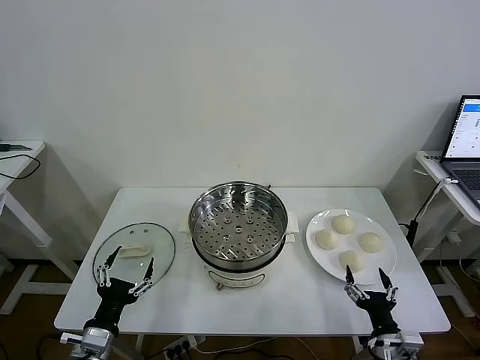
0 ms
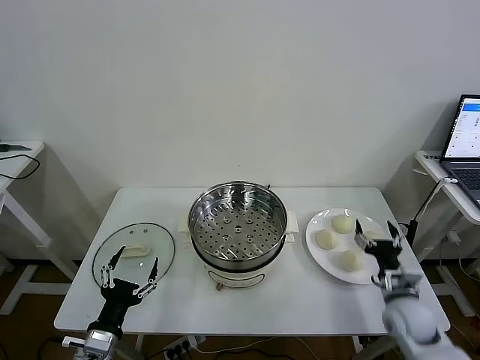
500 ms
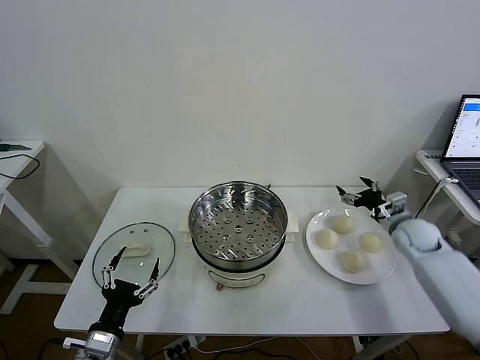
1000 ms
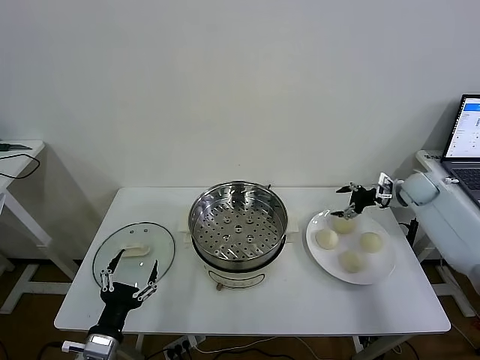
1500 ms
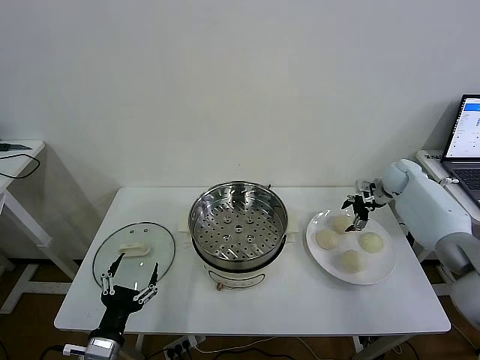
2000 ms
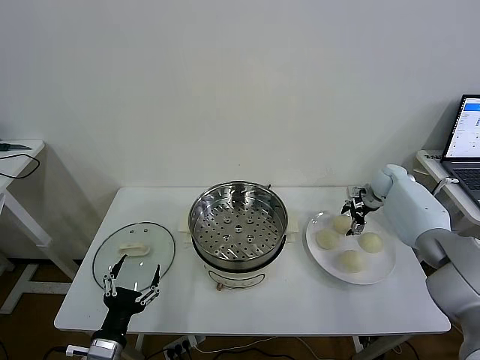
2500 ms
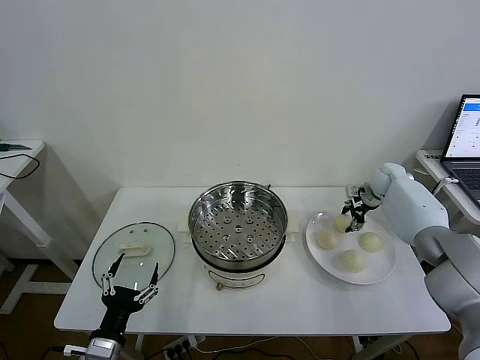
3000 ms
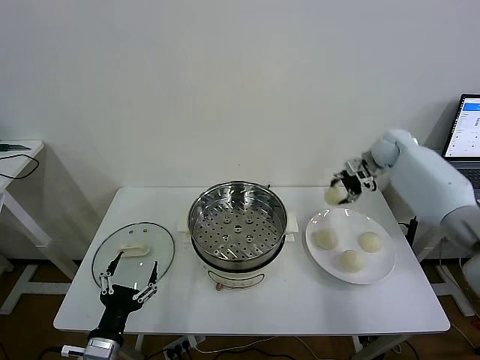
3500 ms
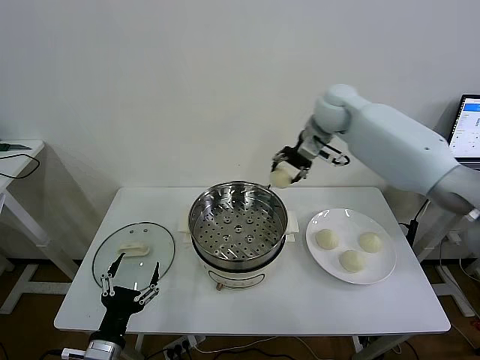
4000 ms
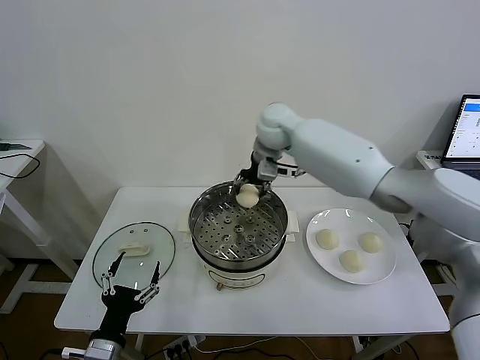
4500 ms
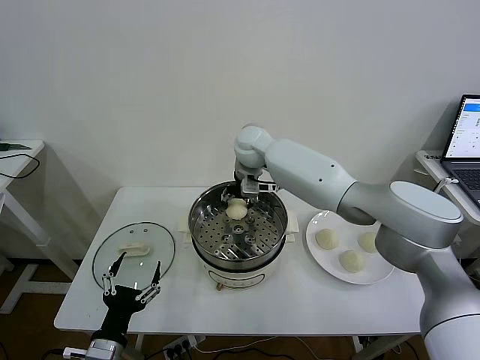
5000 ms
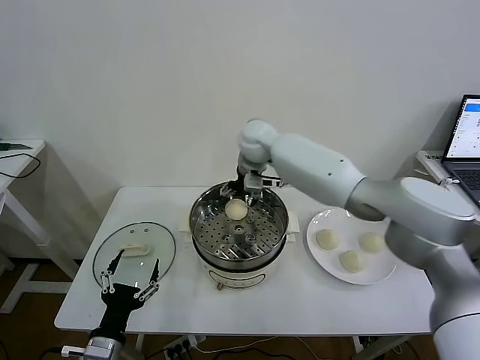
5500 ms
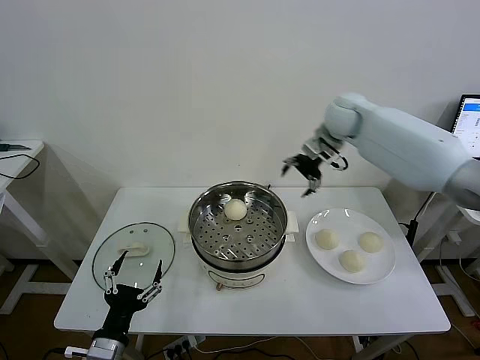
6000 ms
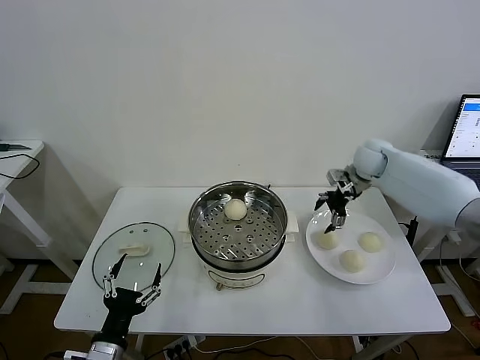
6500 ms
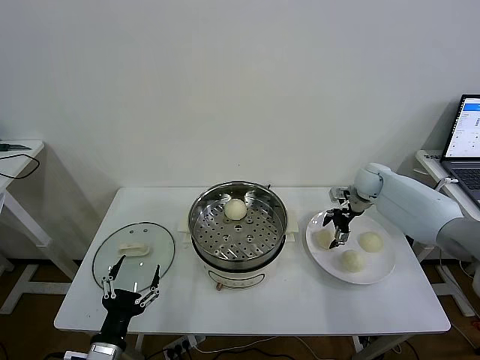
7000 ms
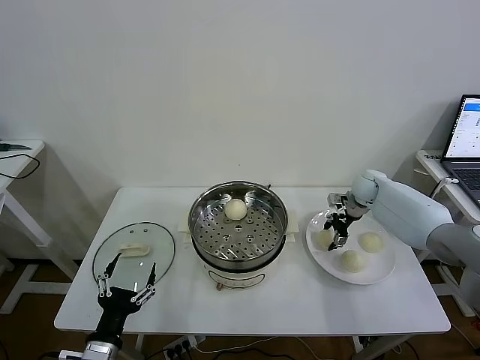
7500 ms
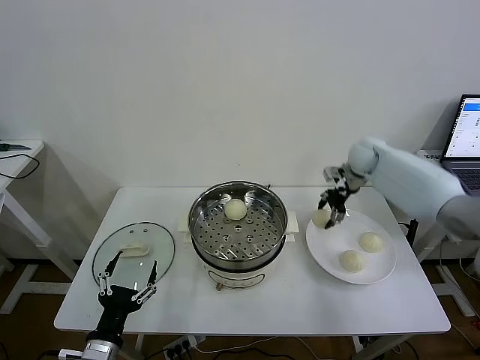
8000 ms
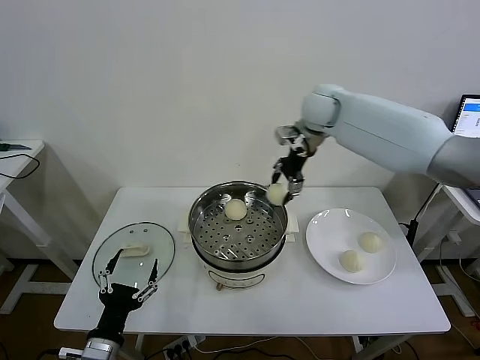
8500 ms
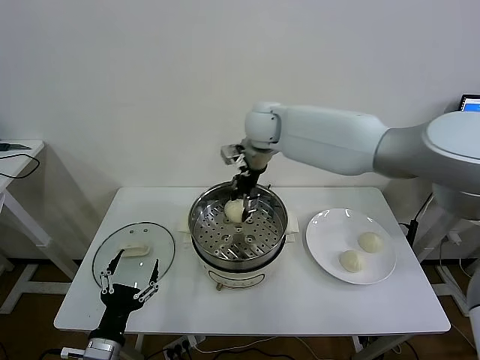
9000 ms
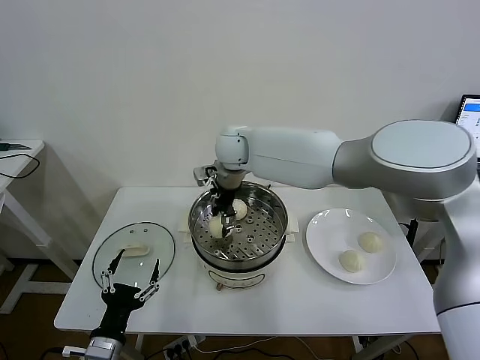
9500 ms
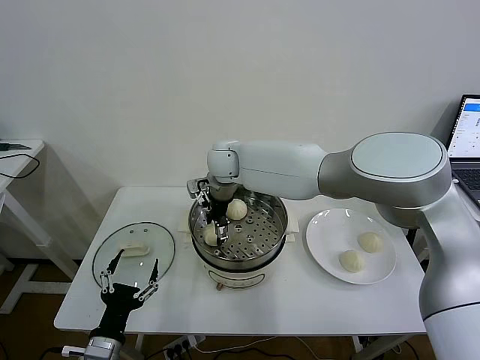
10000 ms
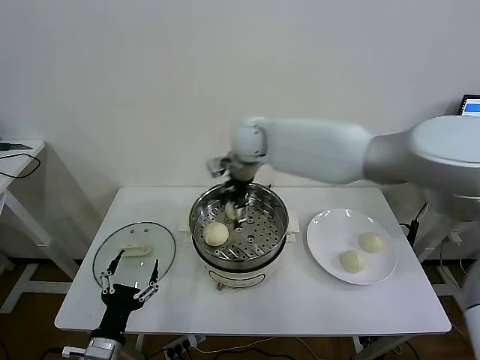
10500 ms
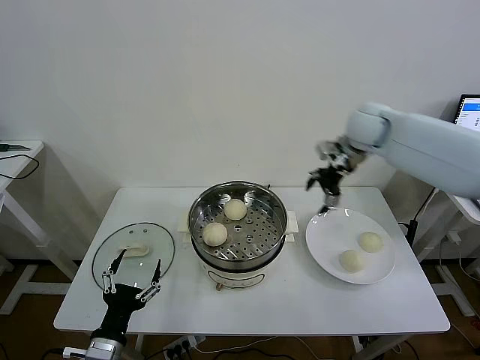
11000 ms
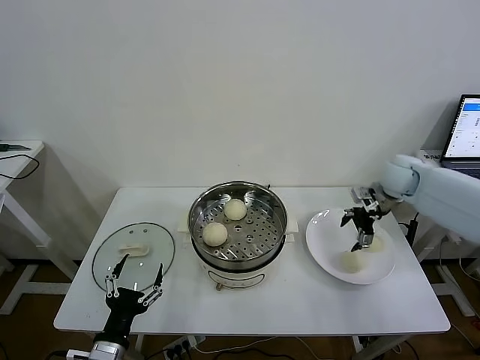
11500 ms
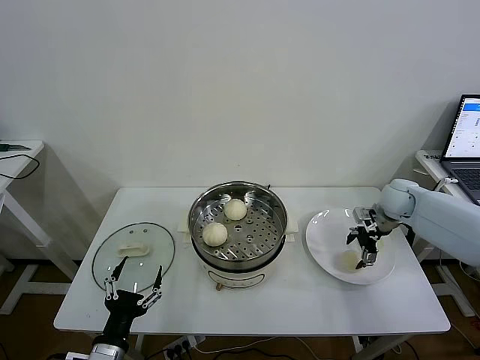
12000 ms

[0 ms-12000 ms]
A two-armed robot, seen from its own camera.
Task of the whole recording: take steamed baozi put them in steamer then cover it.
Step, 0 ms to 2500 ms: Grasp the baozi in the plate with right gripper.
Step, 3000 ms to 5000 ms: Place the baozi on the steamer with right gripper.
Step, 5500 ms to 7500 ms: Grasp the baozi in the plate with right gripper.
Step, 8000 ms to 10000 ms: Place the baozi on the steamer with right gripper.
2000 ms to 4000 ms: The right gripper heads to the left and upward, covering some 35 cm, and closes up.
4000 ms to 6000 ms: The right gripper shifts some 10 cm to the right, and opens.
6000 ms to 8000 ms: The right gripper heads downward, covering roughly 5 cm, and closes its fingers.
8000 ms to 10000 ms: The right gripper travels to the left by some 35 cm, and opens up.
10000 ms to 12000 ms: The right gripper shifts some 40 cm to the right.

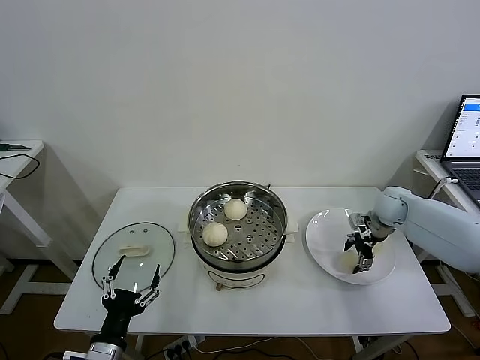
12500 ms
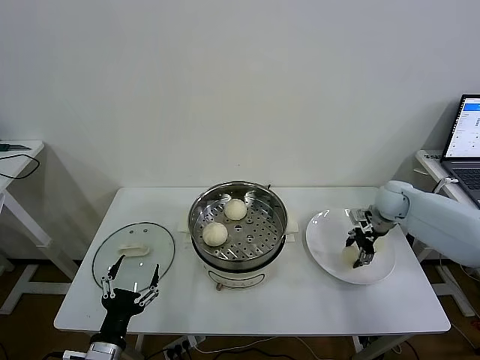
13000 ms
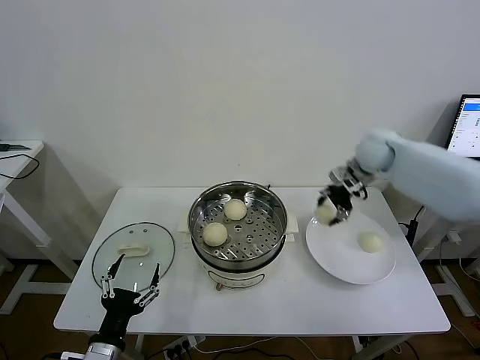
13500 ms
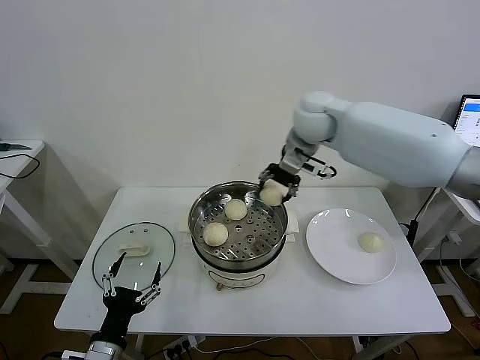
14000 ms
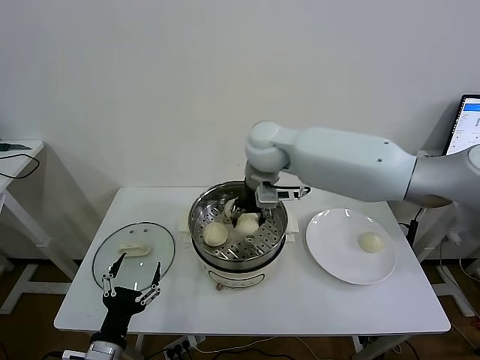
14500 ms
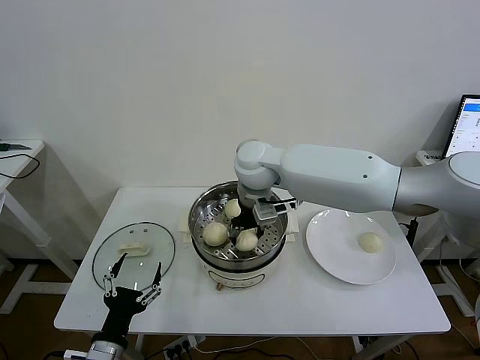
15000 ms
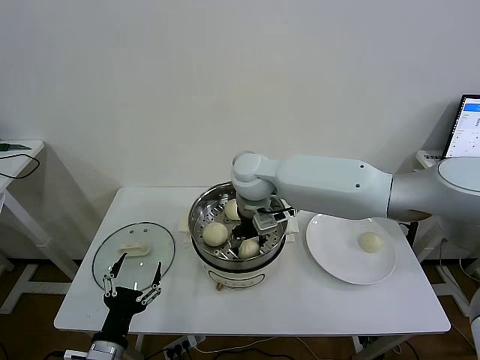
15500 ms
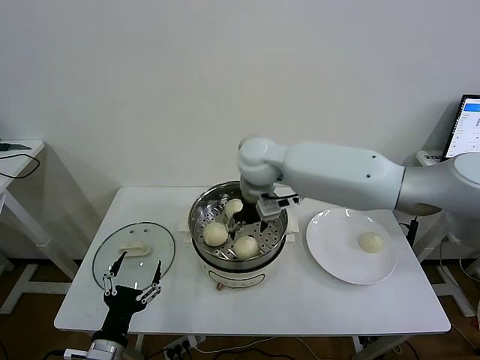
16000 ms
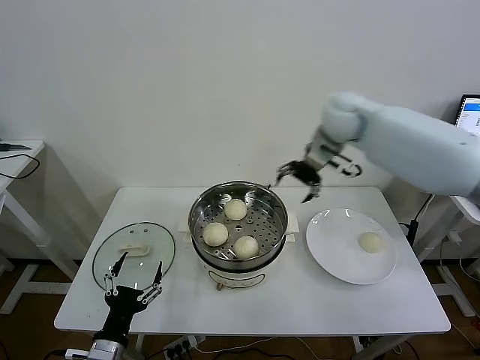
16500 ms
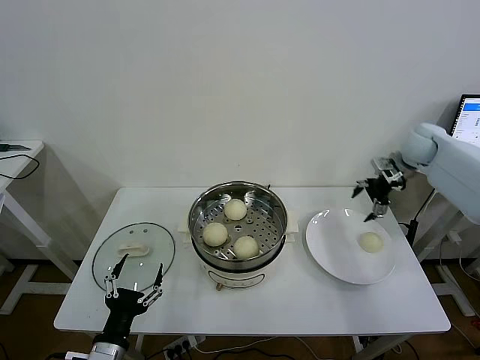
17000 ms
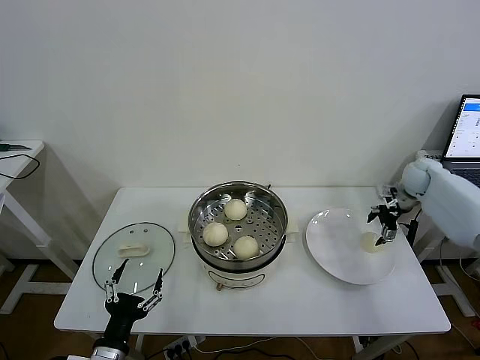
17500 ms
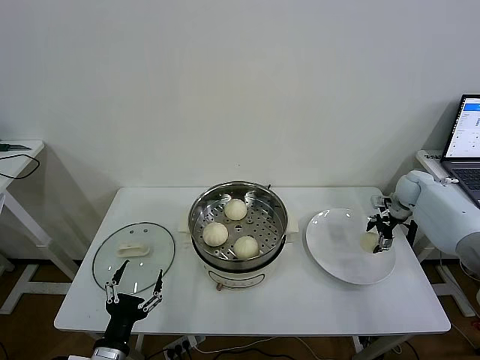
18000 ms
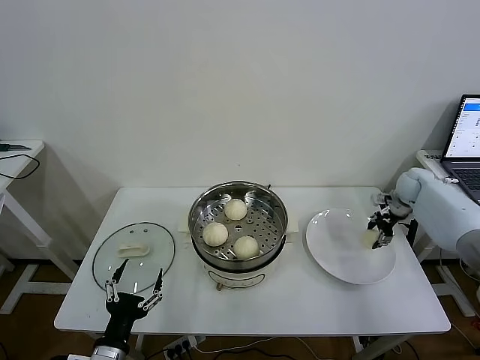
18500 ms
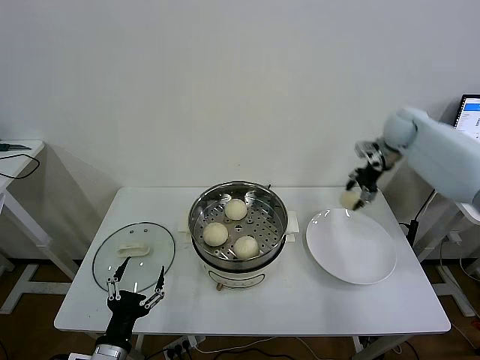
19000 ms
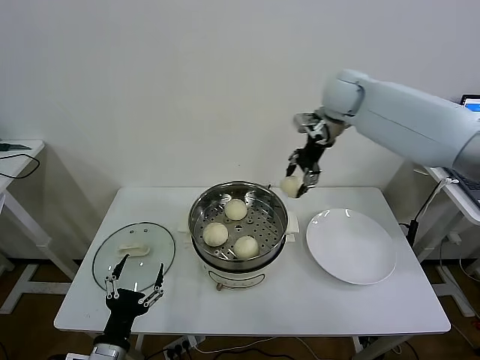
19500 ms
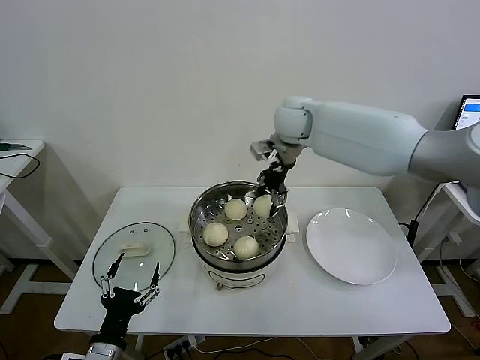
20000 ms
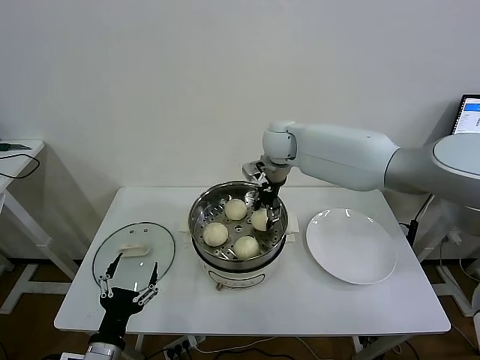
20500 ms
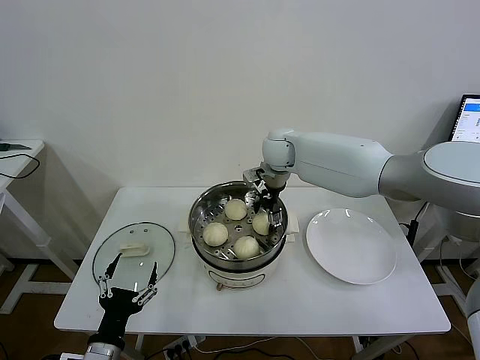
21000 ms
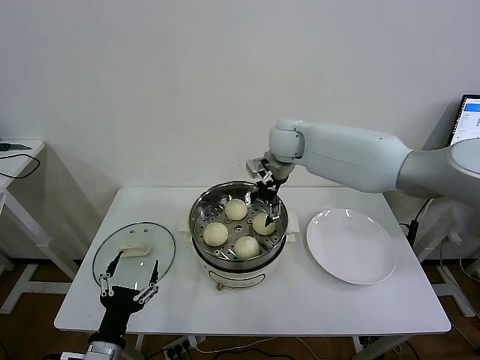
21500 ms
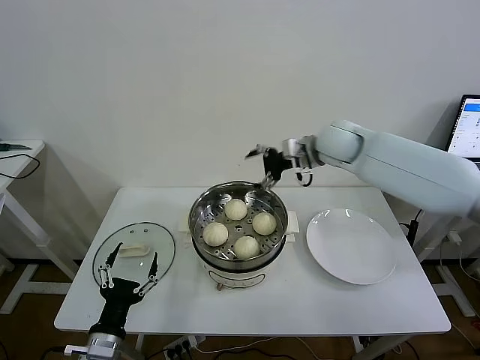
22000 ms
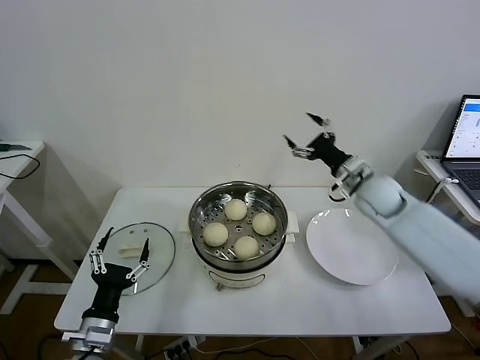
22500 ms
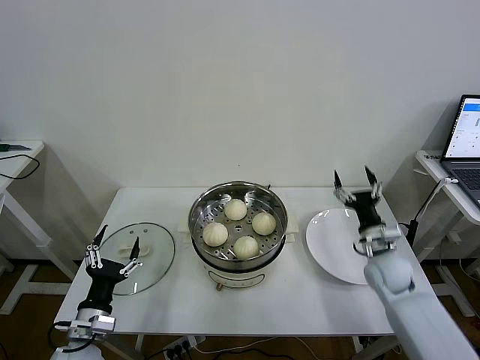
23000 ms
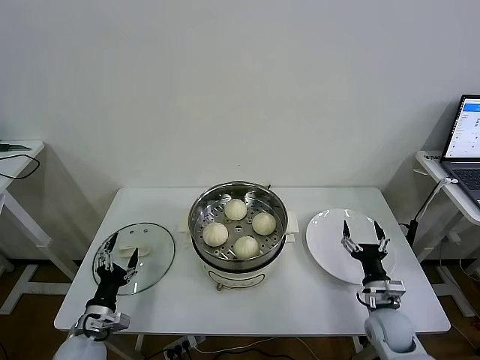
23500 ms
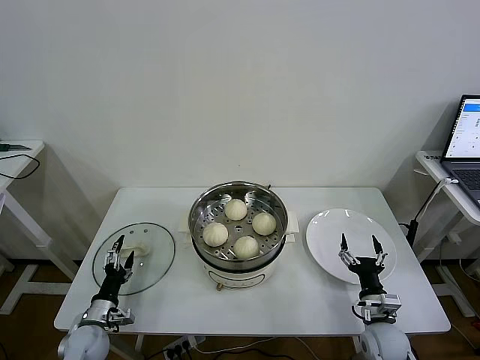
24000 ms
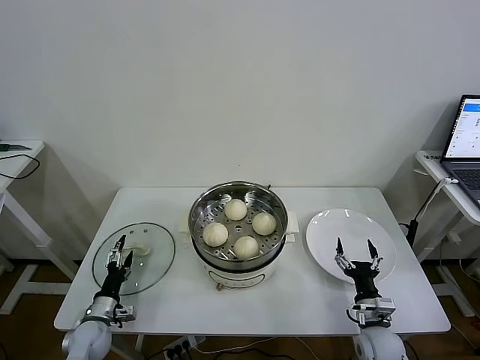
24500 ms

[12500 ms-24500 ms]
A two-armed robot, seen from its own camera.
Task of the whole recording: take steamed baozi put them in steamer then cover it.
Step, 13000 ms to 15500 ms: Place the baozi on the steamer with right gripper.
Step, 16000 ms to 18000 ms: Grasp the baozi in the plate with right gripper.
Step, 18500 ms to 21000 ms: Place the baozi on the steamer with right gripper.
12500 ms to 14500 ms: The right gripper shifts about 40 cm to the left and upward, and closes up.
14500 ms to 16500 ms: The right gripper shifts some 20 cm to the right, and opens its fingers.
16500 ms to 18500 ms: The right gripper moves to the right and downward, roughly 30 cm, and closes.
18500 ms to 20500 ms: The right gripper moves to the left, roughly 40 cm.
20500 ms to 22500 ms: The right gripper goes some 25 cm to the right and backward, and opens its fingers.
22500 ms to 24500 ms: The left gripper shifts roughly 20 cm downward, forward and to the left. Meanwhile the right gripper is displaced downward and backward by about 35 cm.

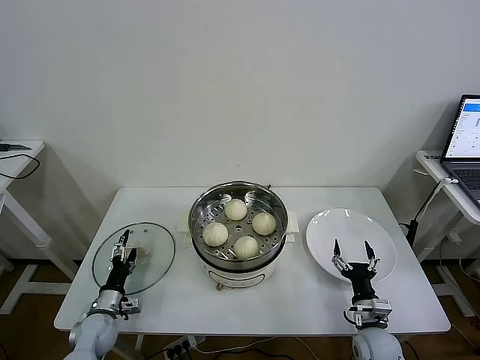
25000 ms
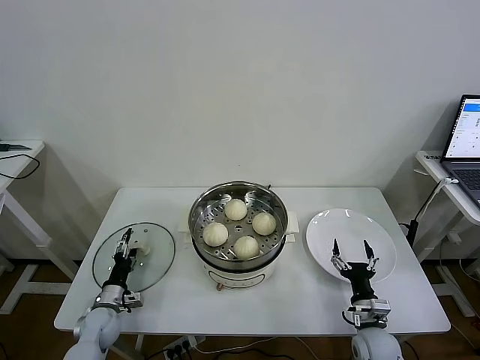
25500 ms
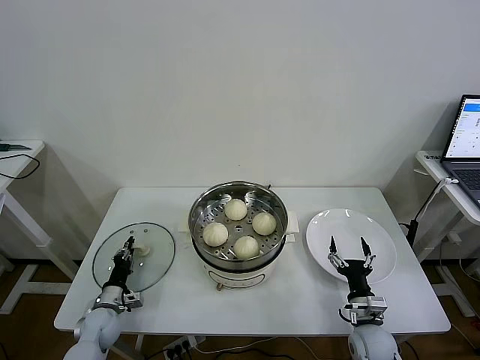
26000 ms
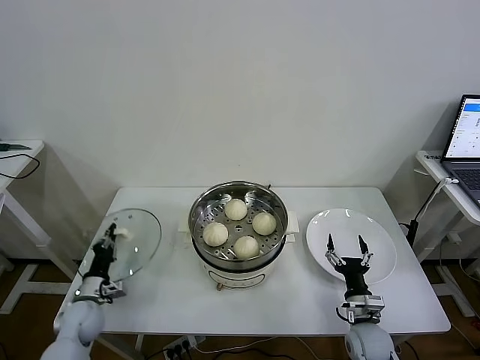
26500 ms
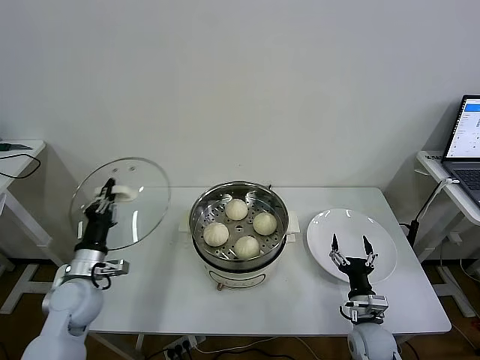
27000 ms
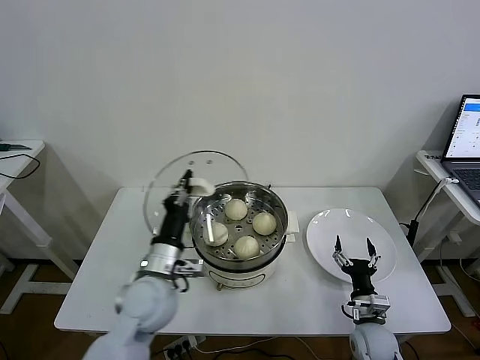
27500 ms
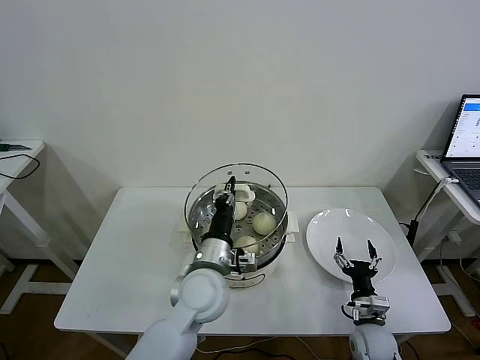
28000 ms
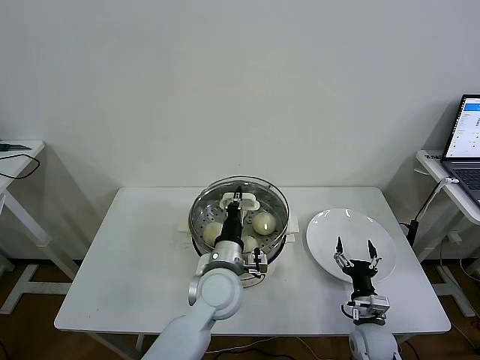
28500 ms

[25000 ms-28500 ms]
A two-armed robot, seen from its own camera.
Task of the whole recording: take steamed baozi put them in steamer then cover it.
25000 ms to 27000 ms: The left gripper shifts about 15 cm upward, and closes up.
27000 ms to 28500 ms: The left gripper moves to the right, about 30 cm.
